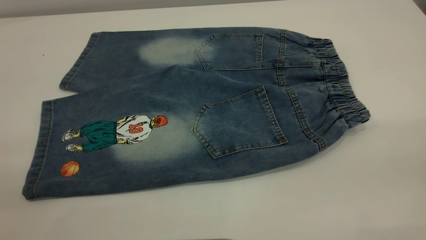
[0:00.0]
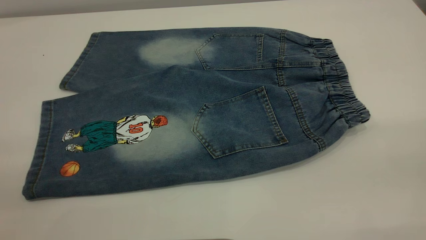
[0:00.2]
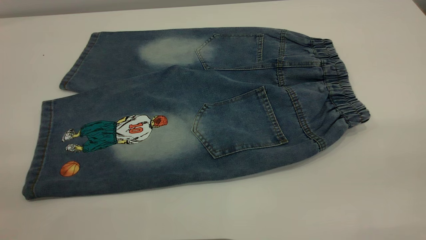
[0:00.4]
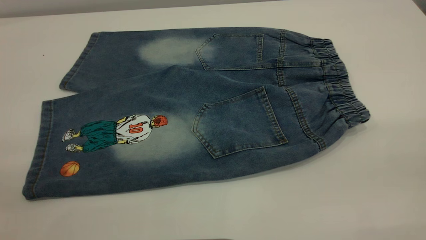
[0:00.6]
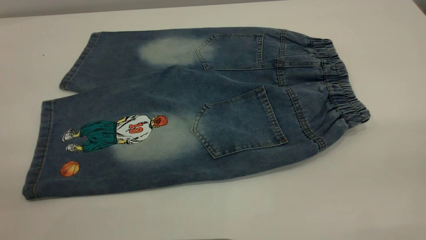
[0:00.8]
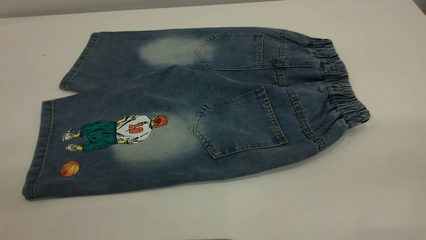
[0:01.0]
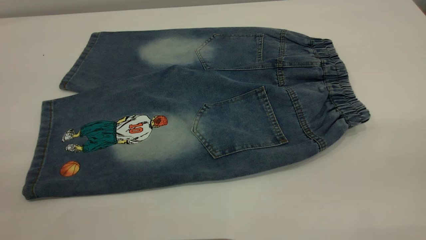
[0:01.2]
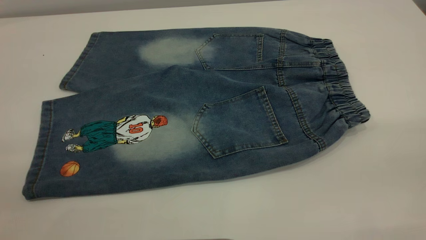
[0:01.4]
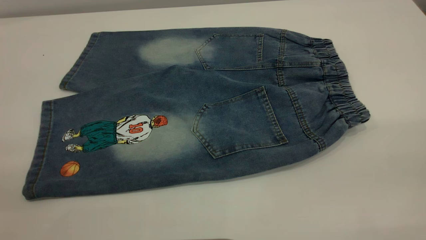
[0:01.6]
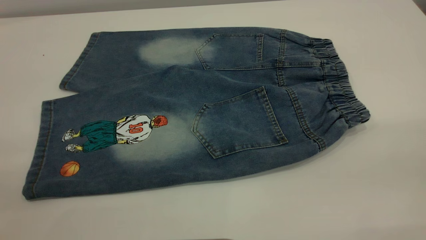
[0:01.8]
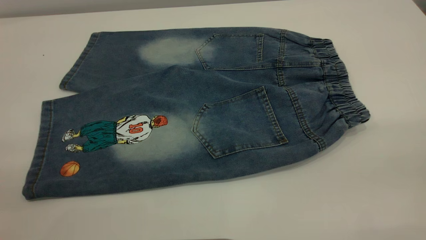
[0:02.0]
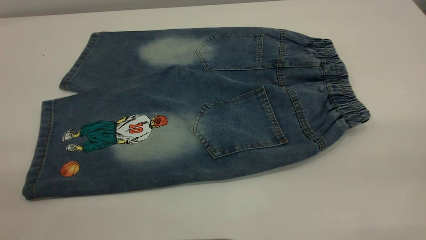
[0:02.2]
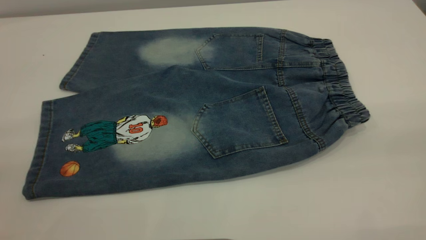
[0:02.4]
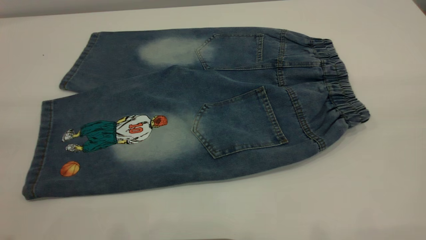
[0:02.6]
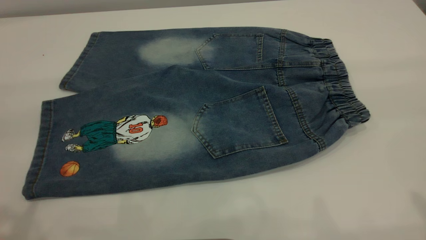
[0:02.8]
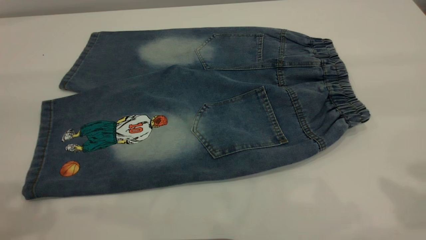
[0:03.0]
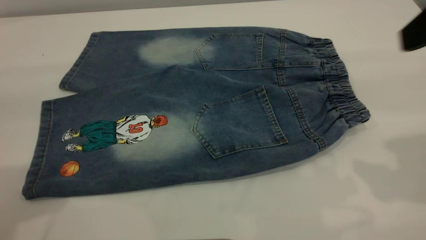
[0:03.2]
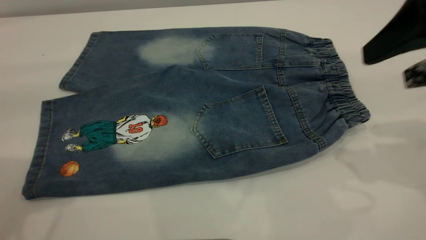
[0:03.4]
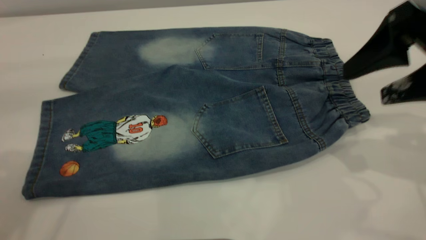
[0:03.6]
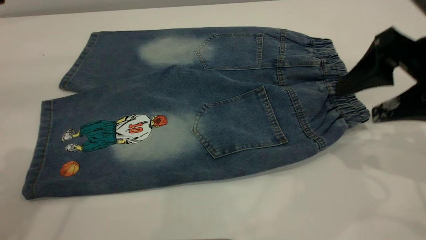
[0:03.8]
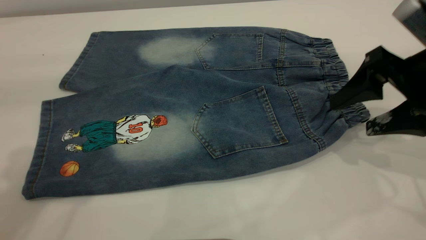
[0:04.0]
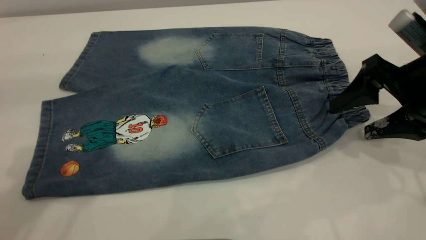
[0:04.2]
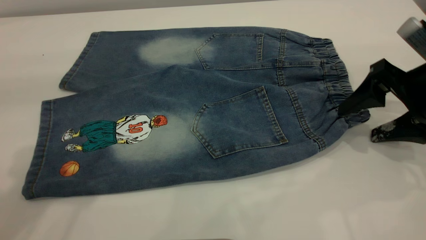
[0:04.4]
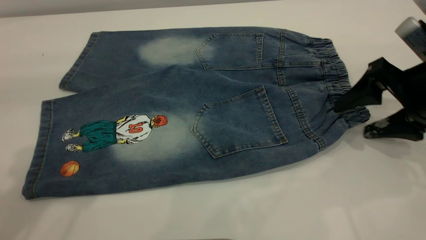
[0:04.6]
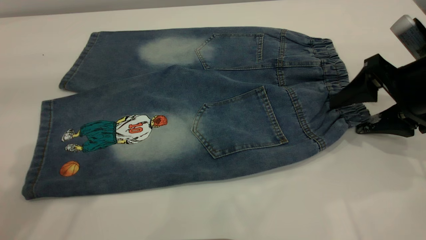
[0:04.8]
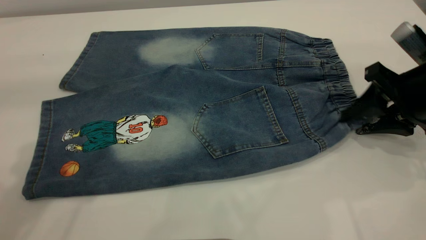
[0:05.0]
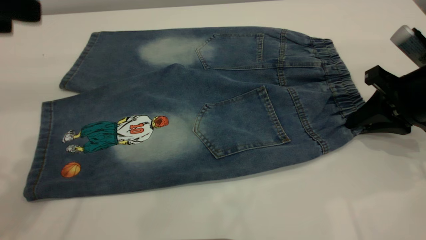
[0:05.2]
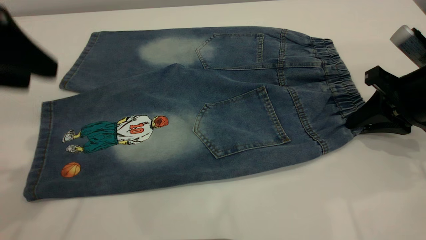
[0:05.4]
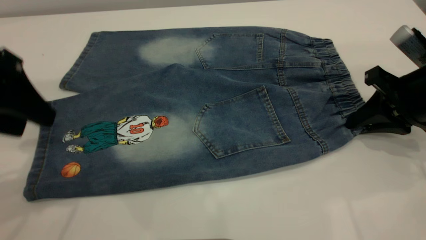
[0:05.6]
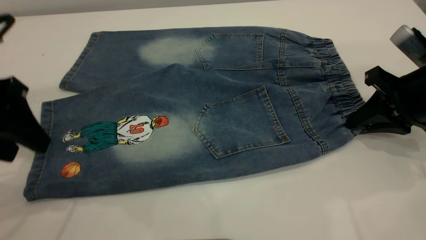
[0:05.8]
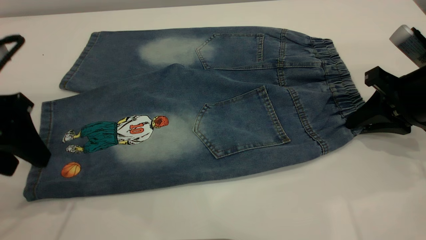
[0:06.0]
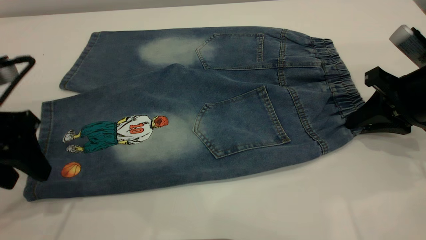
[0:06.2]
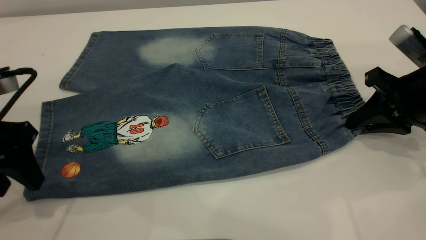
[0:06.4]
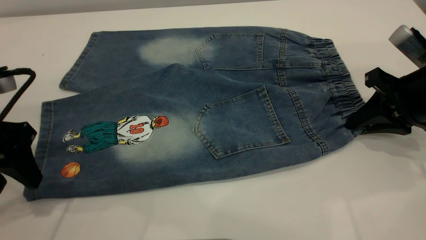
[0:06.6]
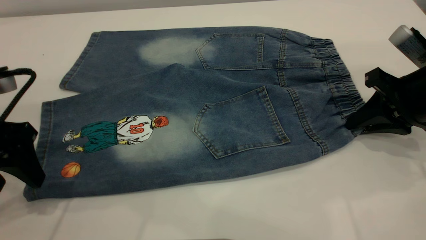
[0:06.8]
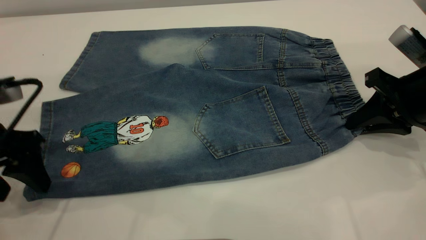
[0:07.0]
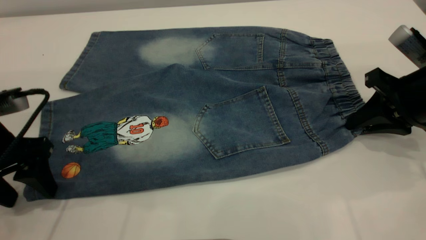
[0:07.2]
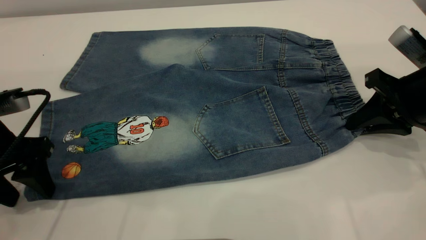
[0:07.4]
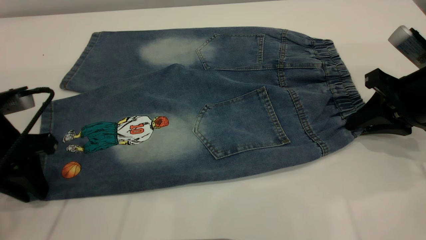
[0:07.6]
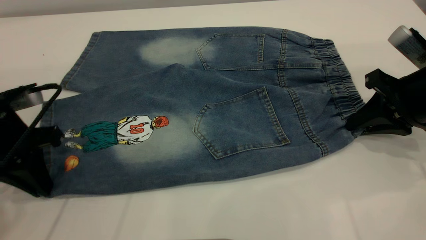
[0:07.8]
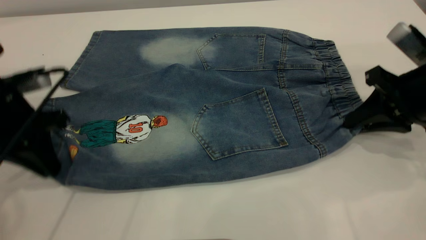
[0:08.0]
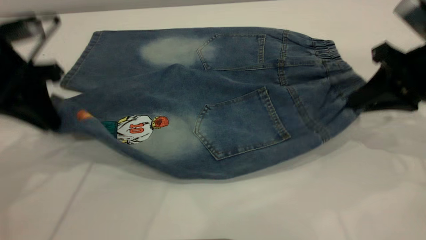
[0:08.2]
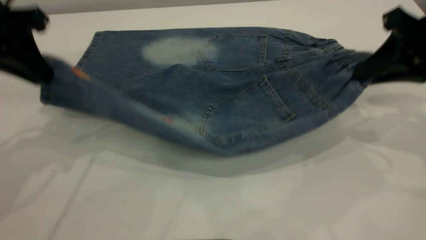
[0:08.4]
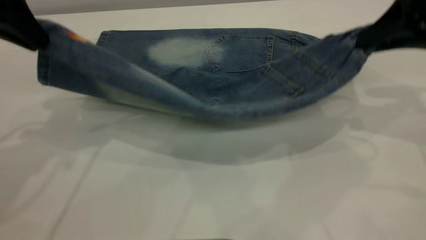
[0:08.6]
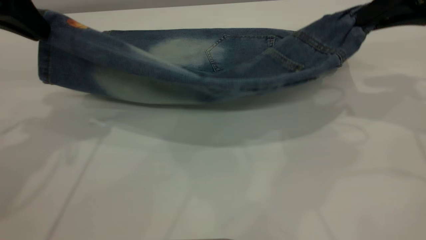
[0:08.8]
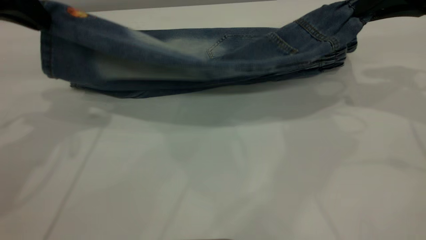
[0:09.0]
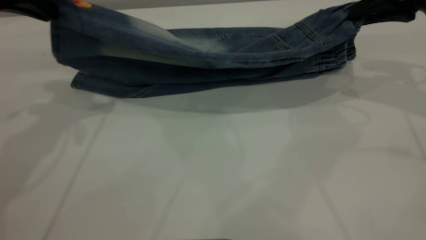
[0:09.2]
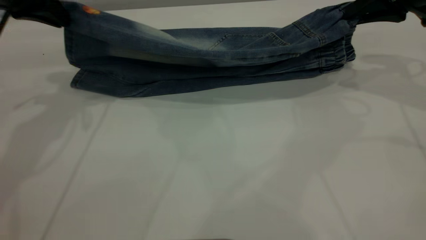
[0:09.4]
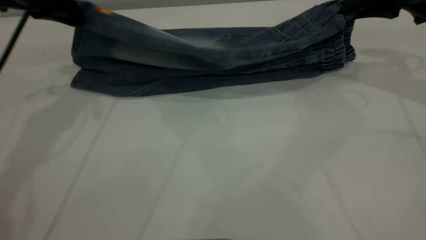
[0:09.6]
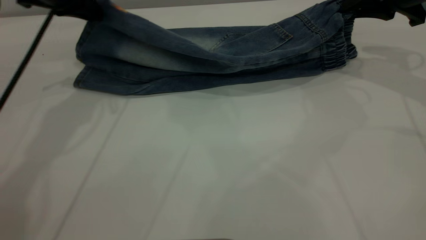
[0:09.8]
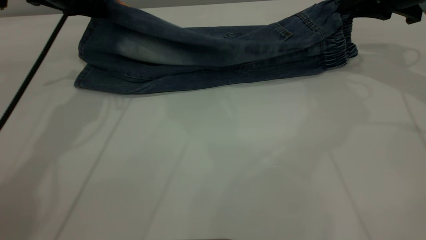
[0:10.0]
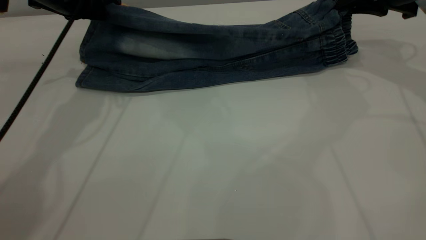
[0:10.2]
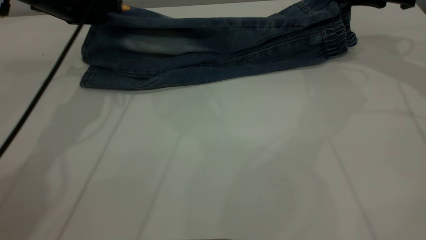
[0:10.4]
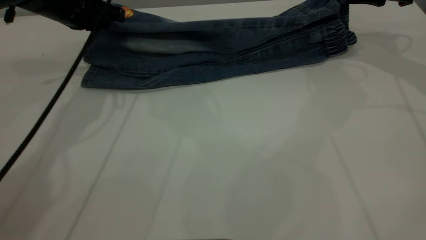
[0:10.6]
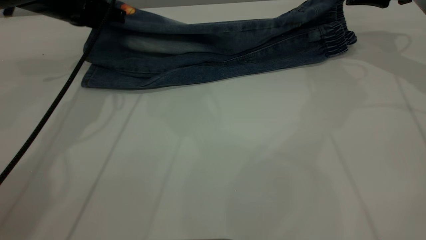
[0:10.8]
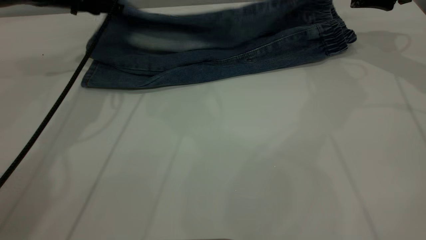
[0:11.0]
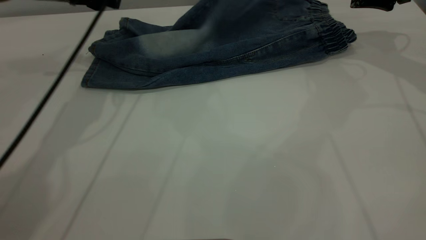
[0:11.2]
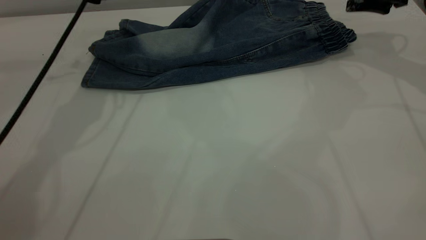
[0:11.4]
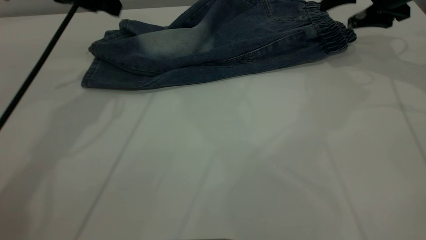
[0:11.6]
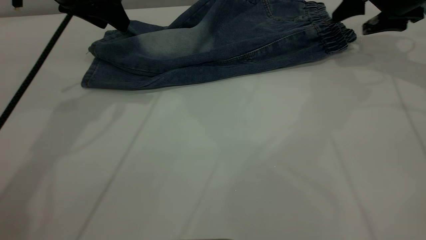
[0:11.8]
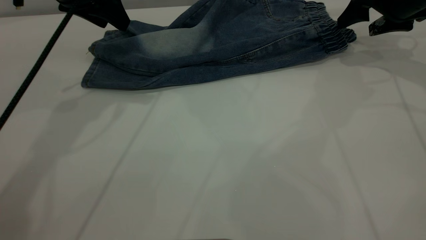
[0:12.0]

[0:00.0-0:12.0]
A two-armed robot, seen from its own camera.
Step, 0:00.0 to 0:11.2: Fold the bottom of the pants upward.
0:00.0 to 0:01.6: Neither gripper changes place.
0:03.0 to 0:04.4: The right gripper is displaced downward and forward by approximately 20 cm.
0:04.4 to 0:06.0: The left gripper shifts about 15 cm downward; the right gripper closes up.
0:06.0 to 0:07.6: The left gripper shifts some 5 cm downward, and closes up.
0:07.6 to 0:09.0: Both grippers travel together upward and forward, some 15 cm.
0:09.0 to 0:10.4: Both grippers move forward and downward, about 15 cm.
0:10.4 to 0:12.0: The right gripper opens. Meanwhile the left gripper is displaced upward by approximately 5 cm, and opens its fingers.

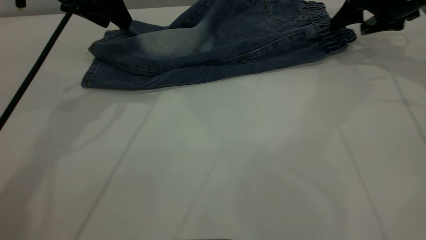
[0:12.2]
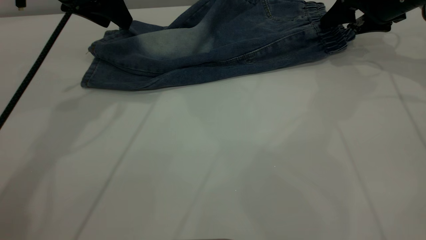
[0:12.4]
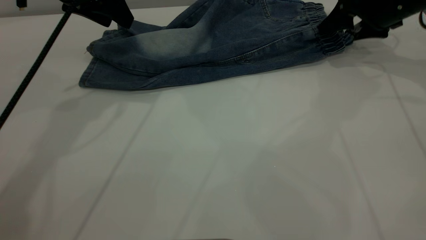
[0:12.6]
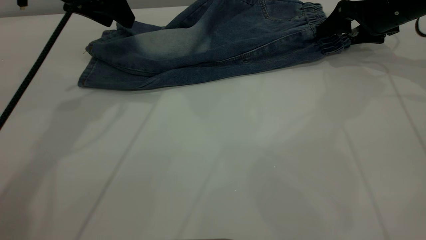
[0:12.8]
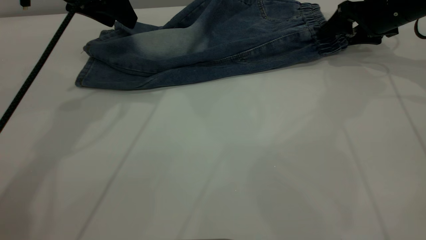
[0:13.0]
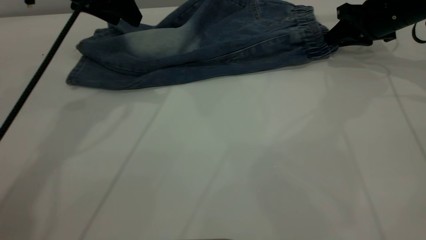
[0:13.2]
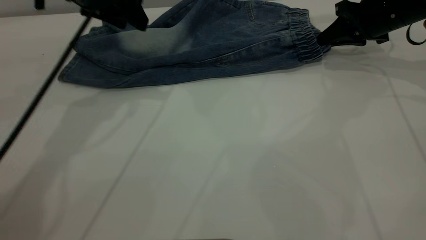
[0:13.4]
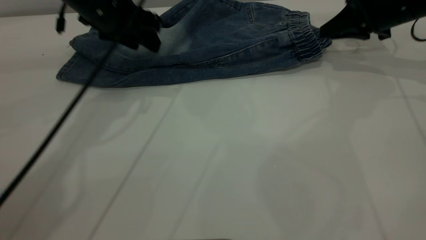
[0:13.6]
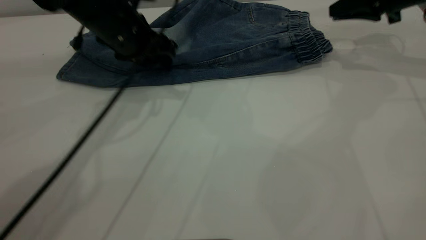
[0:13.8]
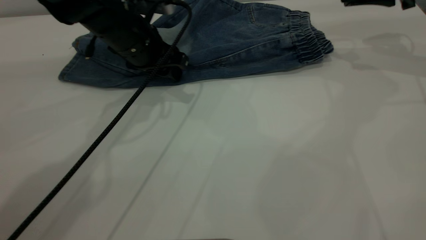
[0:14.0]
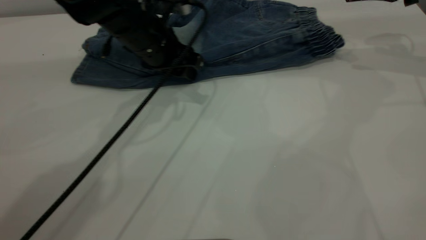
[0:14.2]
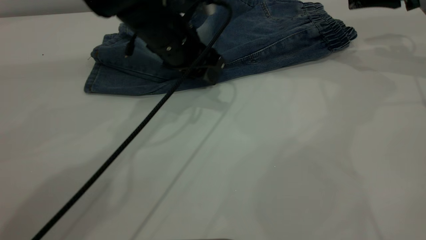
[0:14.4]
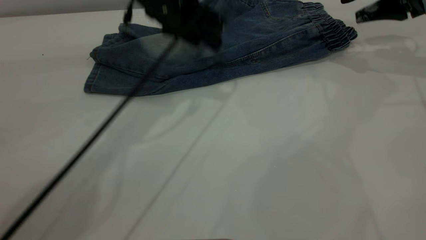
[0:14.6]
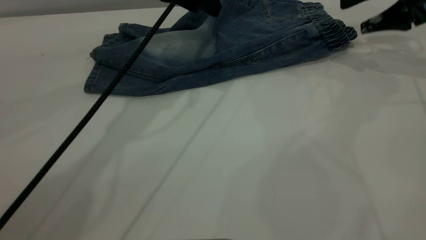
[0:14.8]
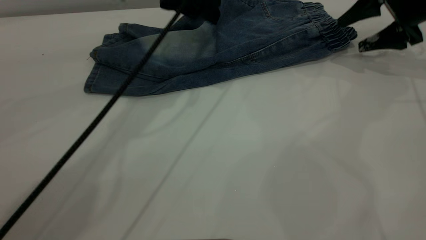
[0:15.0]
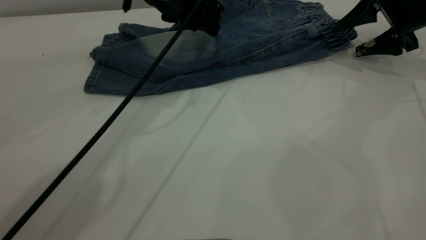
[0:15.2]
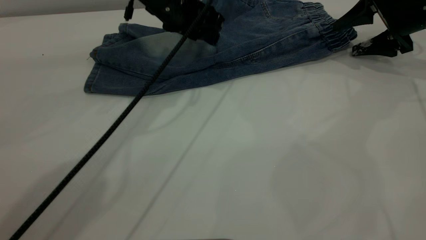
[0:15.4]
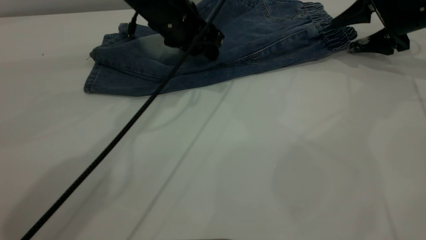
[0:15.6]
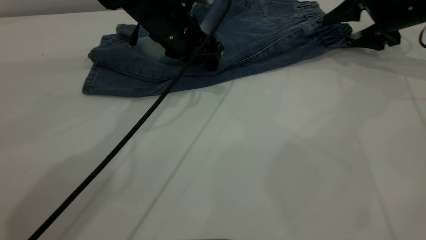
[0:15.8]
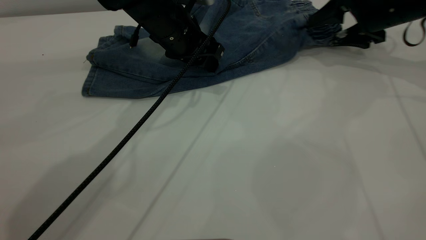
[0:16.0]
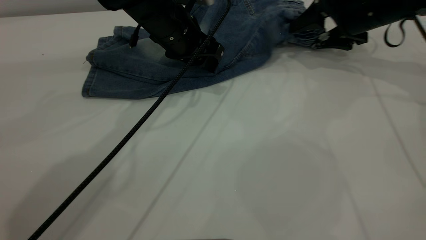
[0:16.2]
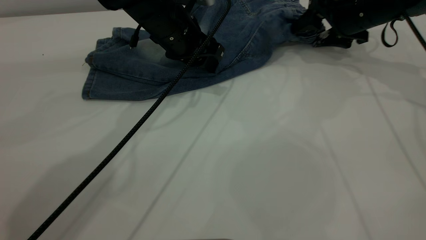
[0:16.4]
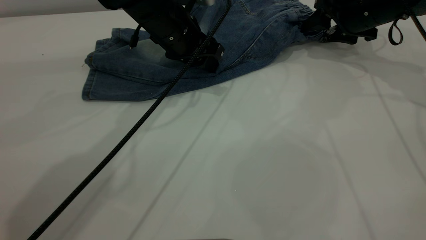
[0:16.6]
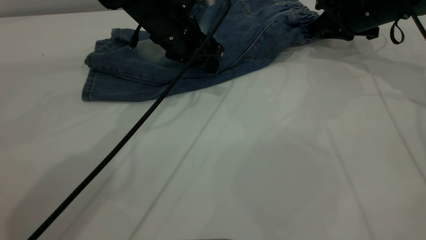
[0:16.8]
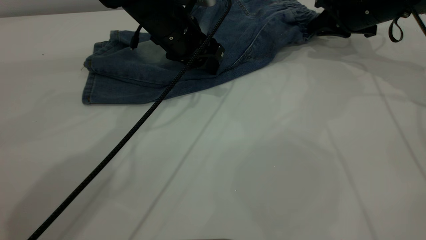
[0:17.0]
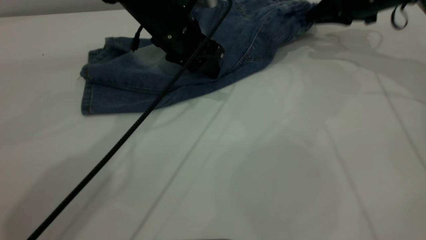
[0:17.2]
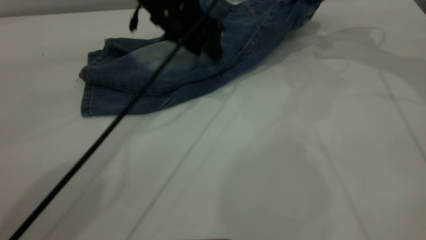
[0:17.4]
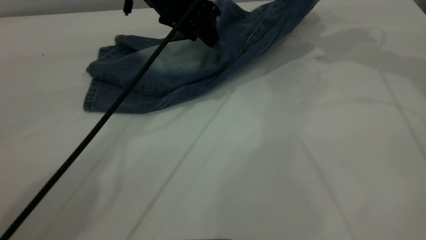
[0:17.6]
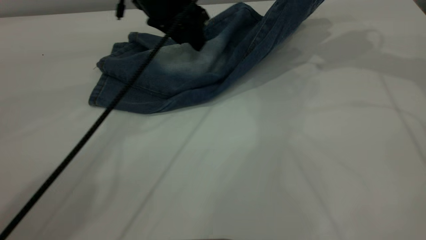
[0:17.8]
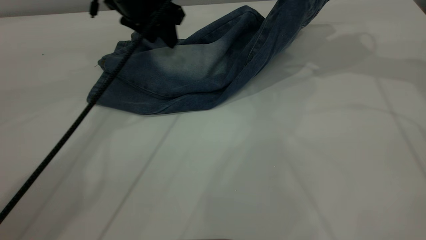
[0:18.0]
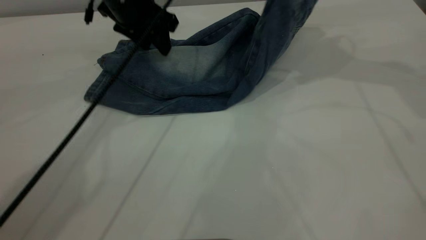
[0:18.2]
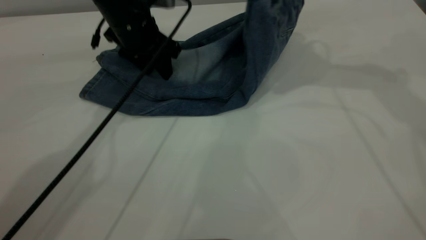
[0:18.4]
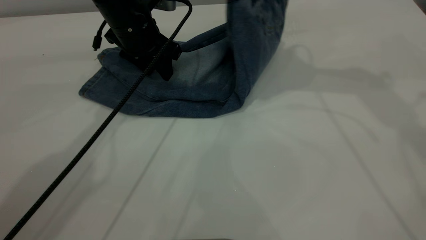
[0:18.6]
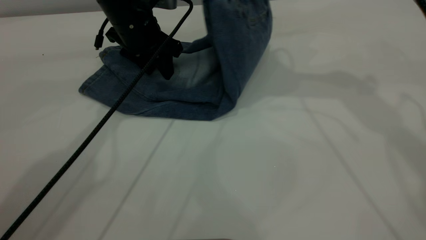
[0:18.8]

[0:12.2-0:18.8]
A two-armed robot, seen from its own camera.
0:12.2 to 0:13.8: The left gripper is displaced downward and to the right by roughly 10 cm. The right gripper closes its fingers.
0:13.8 to 0:15.4: The right gripper changes place by approximately 5 cm, and opens, while the left gripper goes roughly 5 cm to the right, and goes upward and returns, some 10 cm each way.
0:15.4 to 0:17.2: The right gripper is displaced to the left by some 5 cm, and closes its fingers.
0:17.2 to 0:18.8: The right gripper shifts about 20 cm to the left, upward and backward. Meanwhile the left gripper shifts roughly 5 cm to the left.
